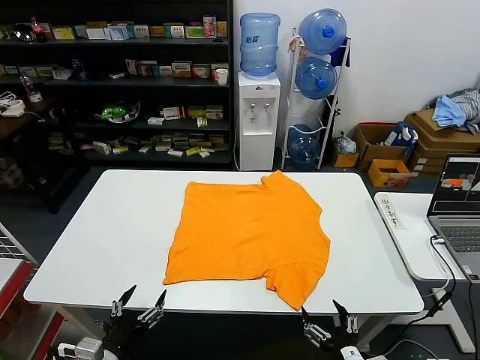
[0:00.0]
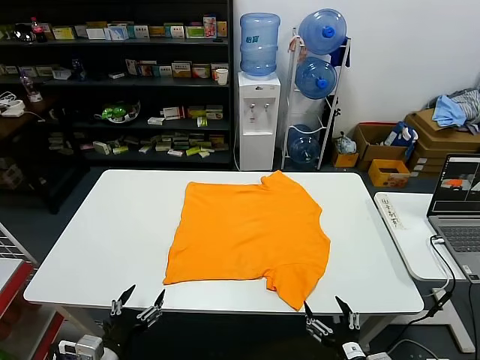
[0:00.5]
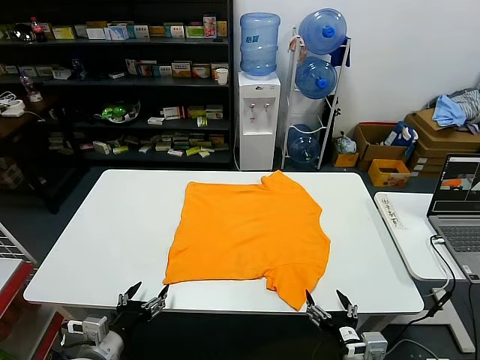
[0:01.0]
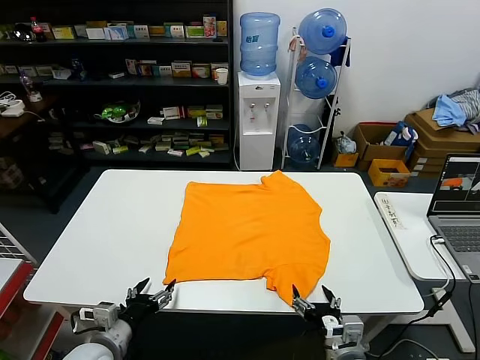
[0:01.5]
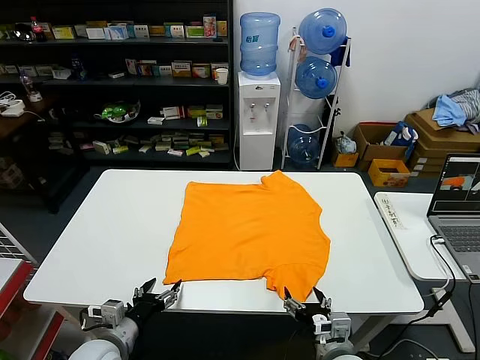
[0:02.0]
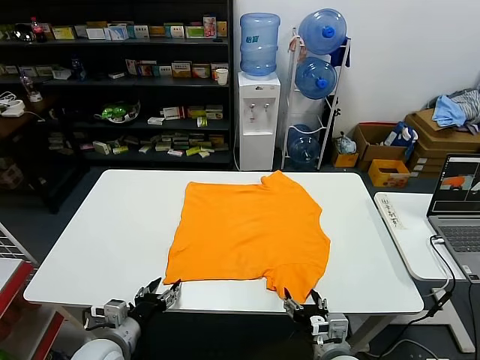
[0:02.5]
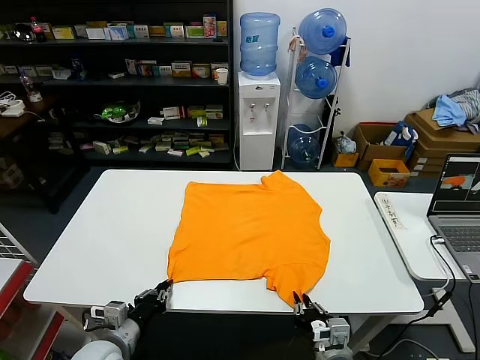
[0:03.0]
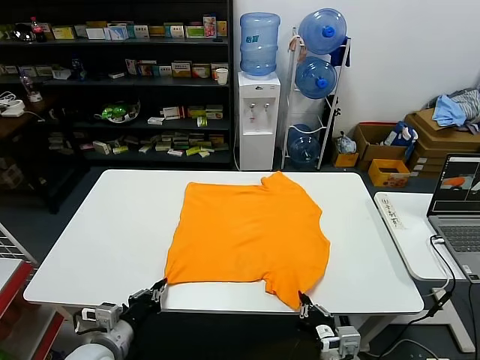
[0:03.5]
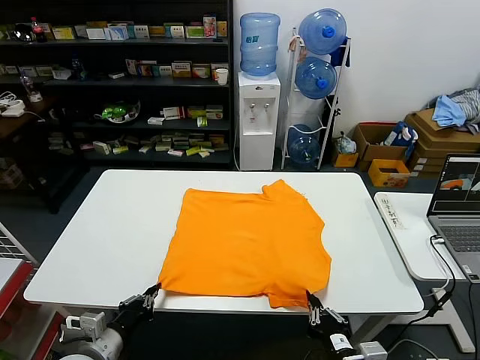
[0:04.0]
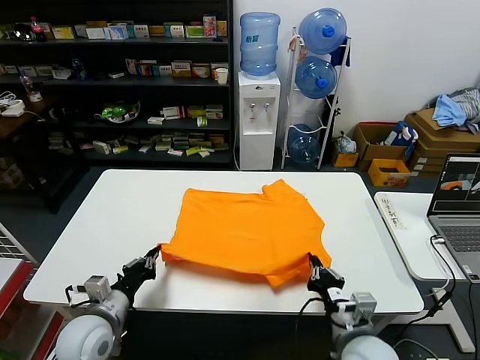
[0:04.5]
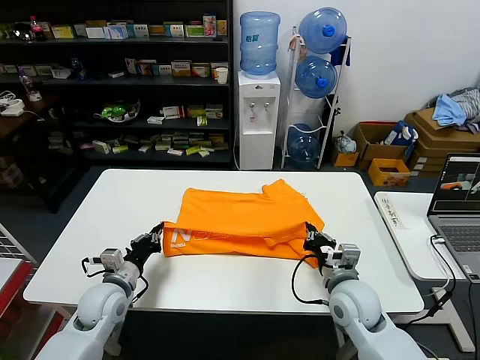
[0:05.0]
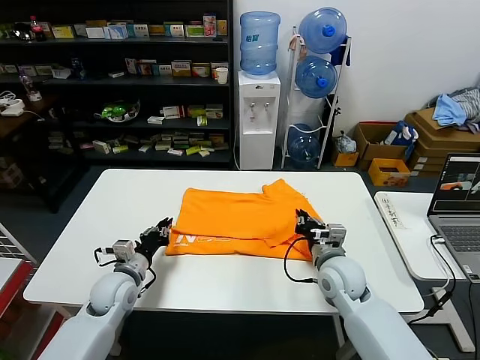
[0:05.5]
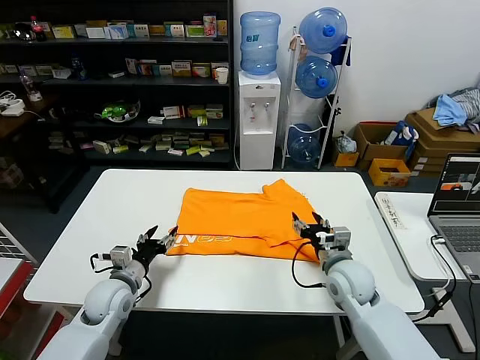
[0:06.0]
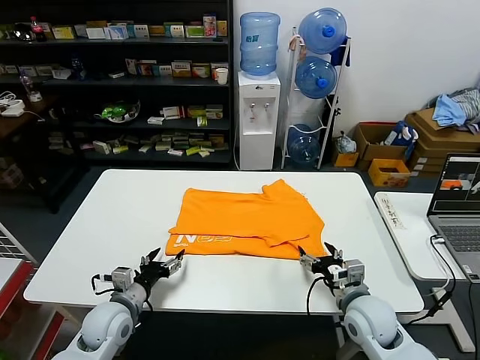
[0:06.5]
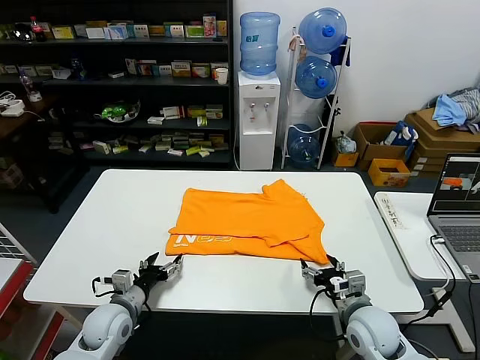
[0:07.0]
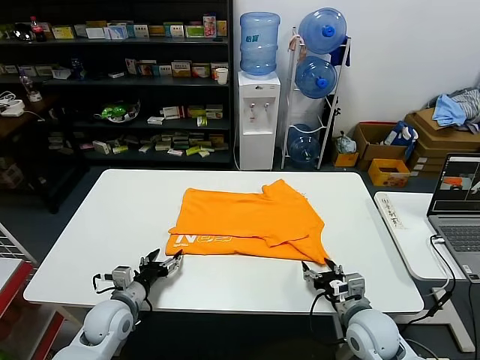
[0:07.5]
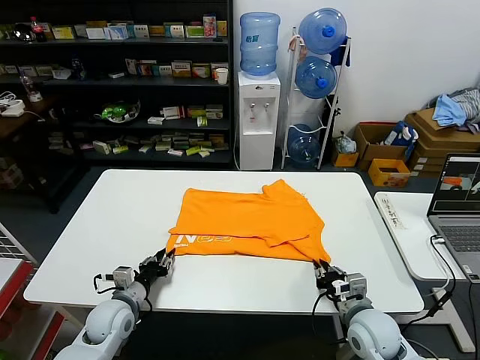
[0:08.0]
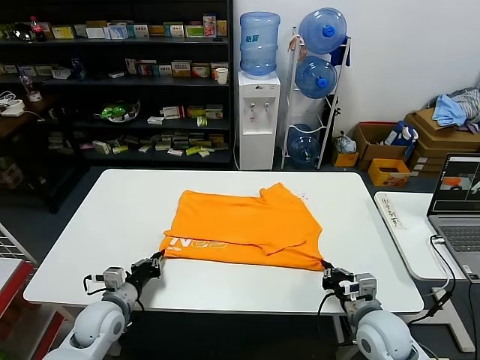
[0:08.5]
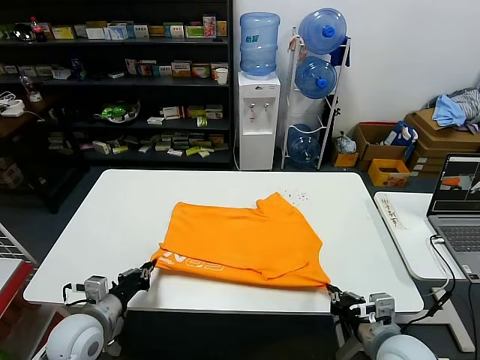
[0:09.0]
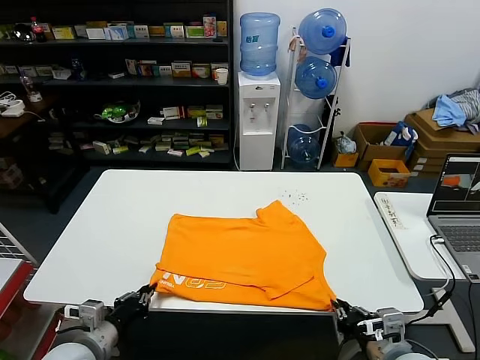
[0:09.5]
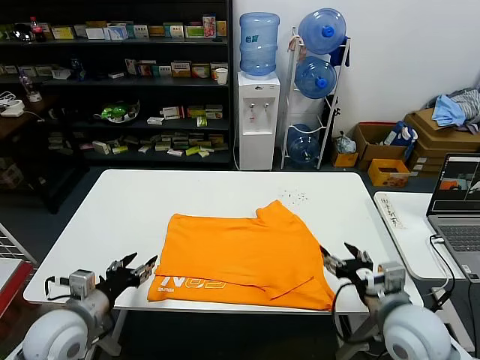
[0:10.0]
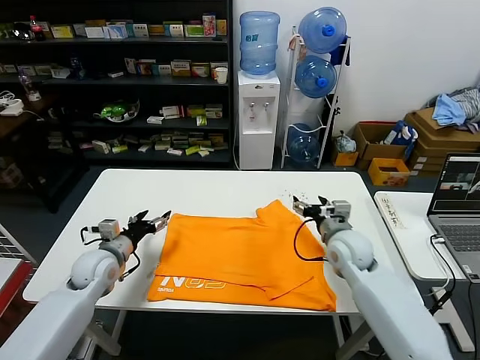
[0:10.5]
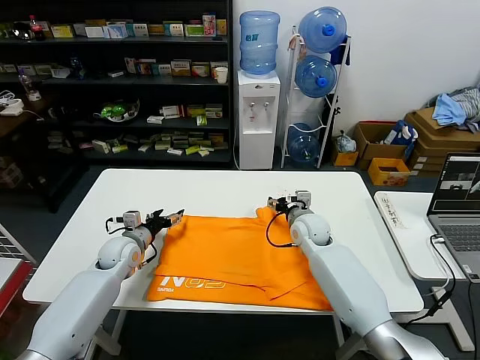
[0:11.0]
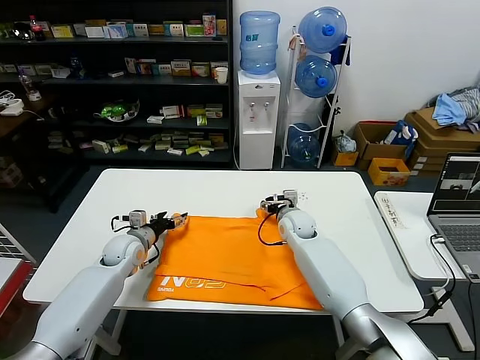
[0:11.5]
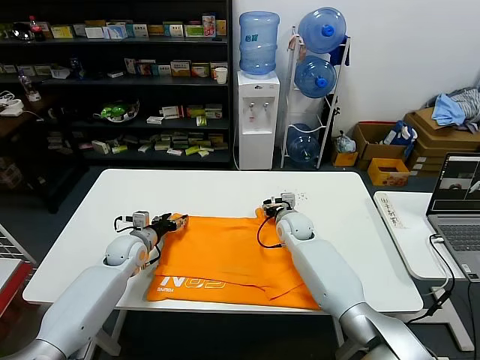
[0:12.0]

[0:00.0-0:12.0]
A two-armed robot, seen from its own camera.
Task of the whole recording: fold and organize the clothes.
Step, 0:00.0 to 0:03.5: use both grippers simultaneously to clamp the lower edge of the clothing fabric.
Step, 0:04.0 to 0:05.5: use both grippers to drag the lower edge of the fabric forward and fold it over the upper edge.
Step, 0:06.0 to 0:09.5: Drag the clothes downward with both gripper.
0:02.0 to 0:04.0: The left gripper ends up about 5 cm from where it was, and closes its fingers. The right gripper moves backward and upward, some 10 cm, and closes.
0:04.0 to 0:06.0: Both grippers move forward, approximately 20 cm. The right gripper opens. The left gripper opens.
0:06.0 to 0:08.0: The right gripper moves backward, approximately 10 cm, and closes. Meanwhile the left gripper shifts by roughly 5 cm, and closes up.
0:08.0 to 0:10.0: The right gripper goes roughly 10 cm upward, and opens; the left gripper heads upward and backward, covering about 15 cm, and closes, then reopens.
0:10.0 to 0:12.0: The left gripper travels forward by roughly 25 cm, while the right gripper moves forward and to the left, about 30 cm.

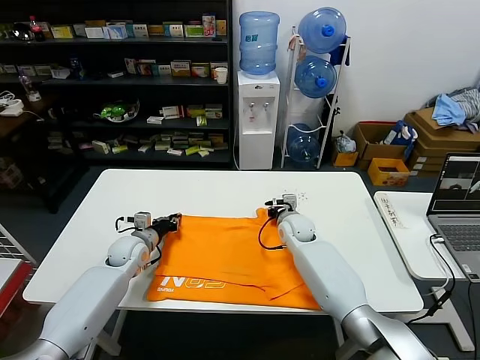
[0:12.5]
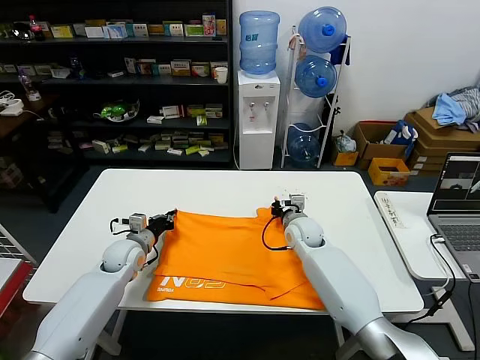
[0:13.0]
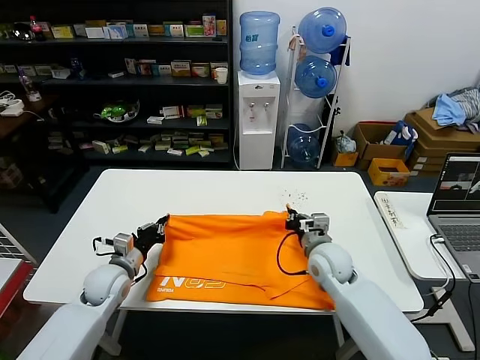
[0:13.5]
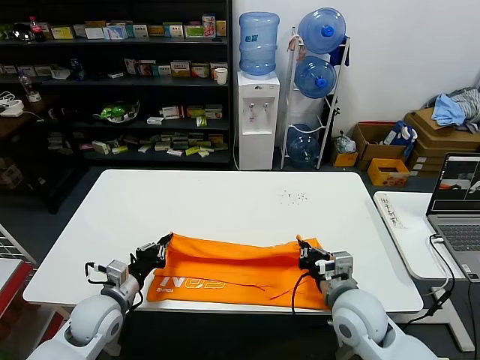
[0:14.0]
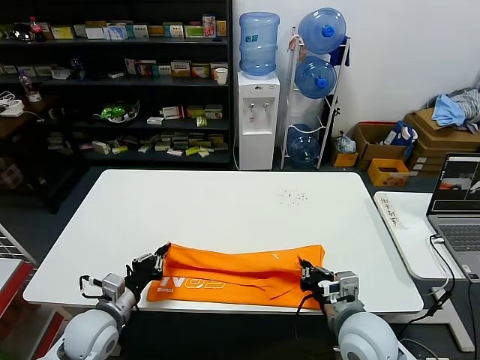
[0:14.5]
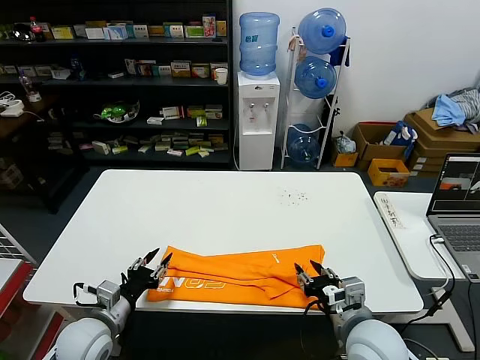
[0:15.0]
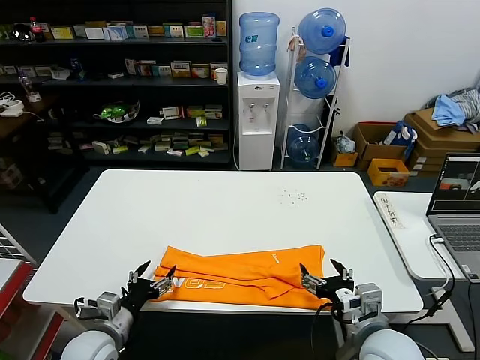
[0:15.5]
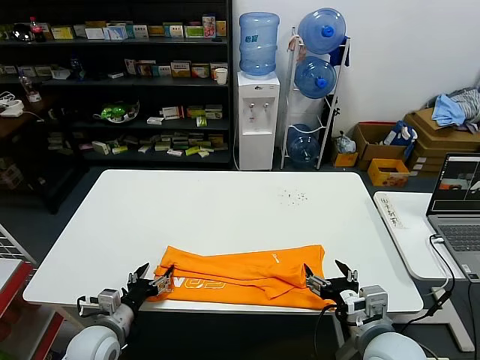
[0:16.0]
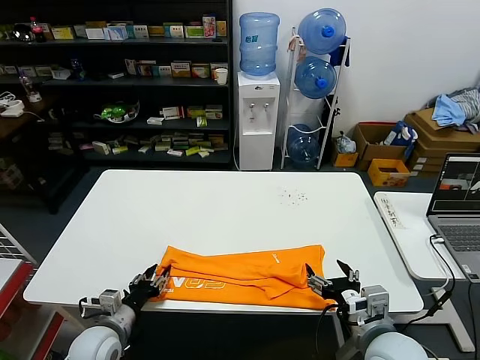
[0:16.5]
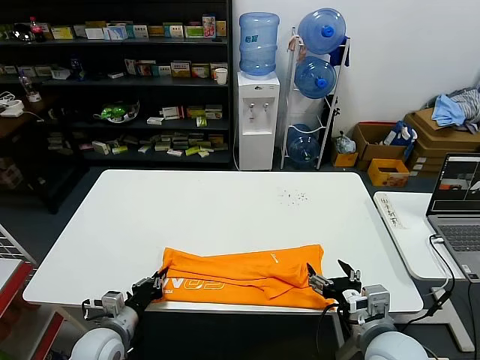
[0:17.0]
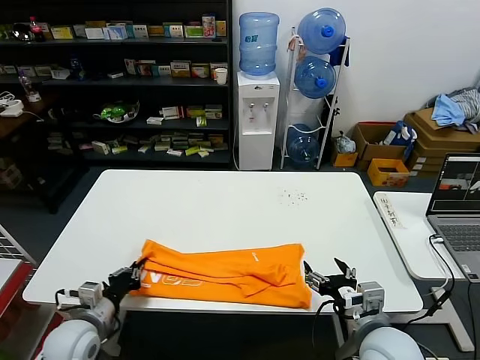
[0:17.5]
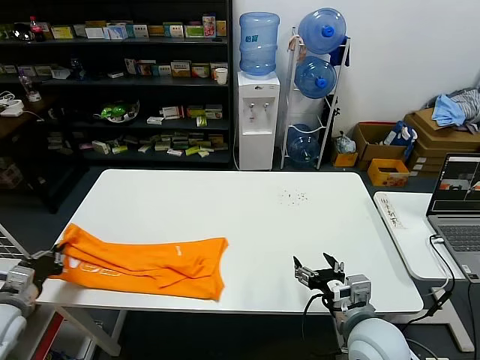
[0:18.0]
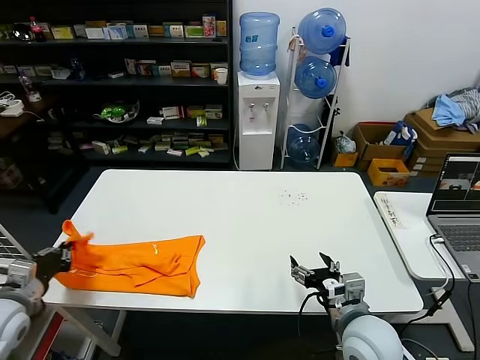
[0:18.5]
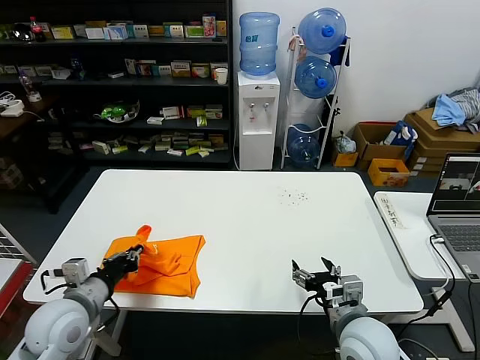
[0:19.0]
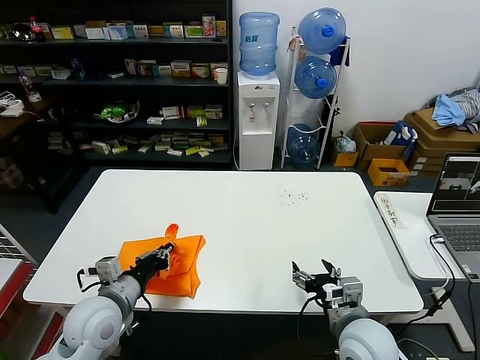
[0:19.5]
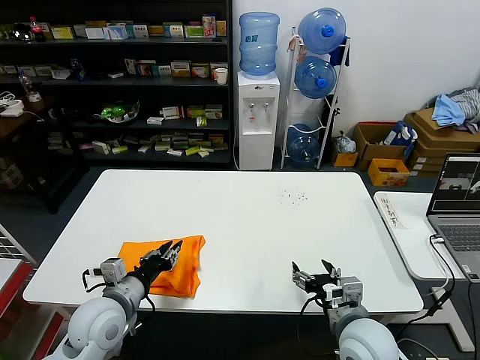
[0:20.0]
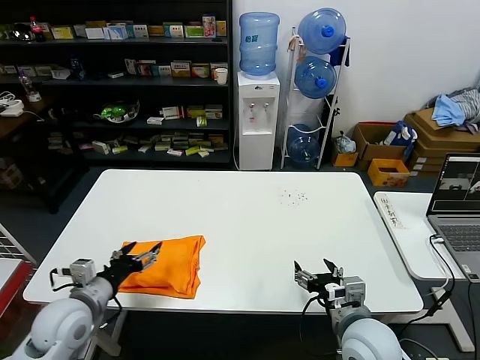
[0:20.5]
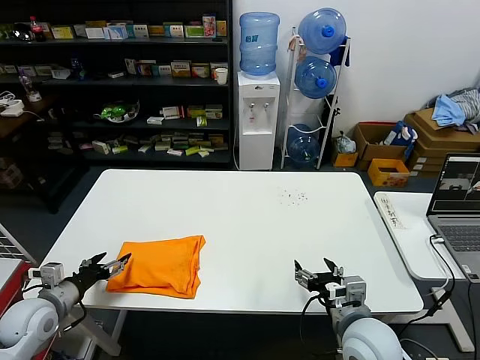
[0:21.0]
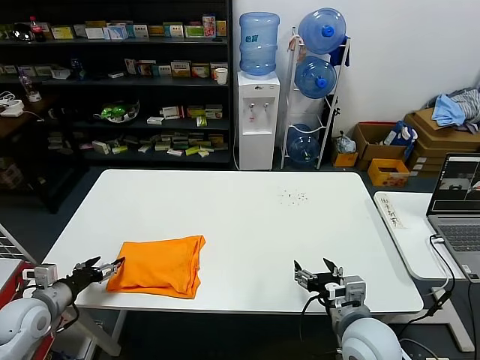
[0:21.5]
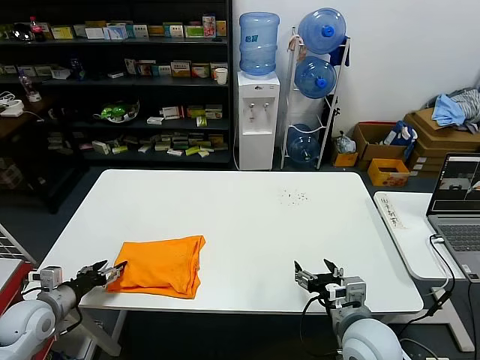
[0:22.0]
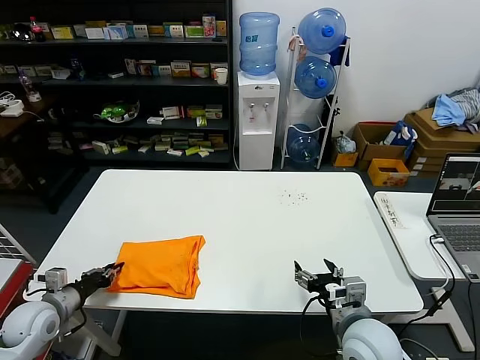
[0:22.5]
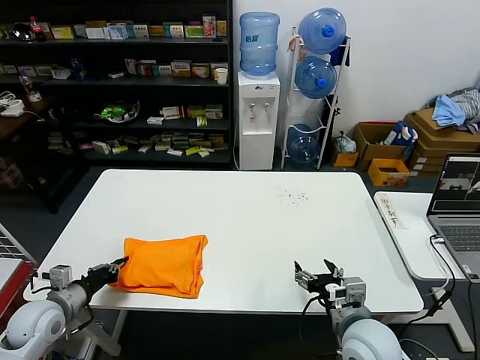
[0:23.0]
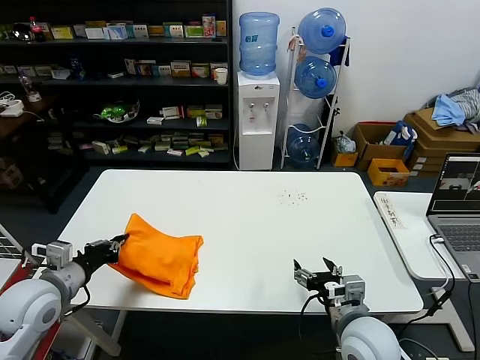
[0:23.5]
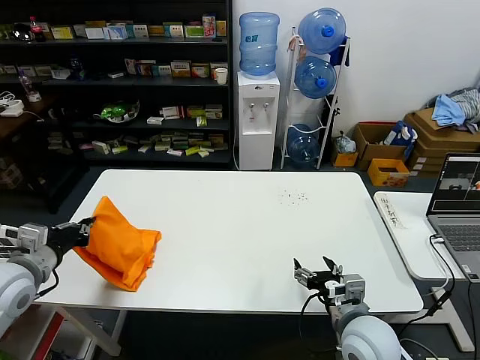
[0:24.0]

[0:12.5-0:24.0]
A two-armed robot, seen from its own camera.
Task of the whole recording: fold and organize the clothes.
Step, 0:13.0 to 0:15.0: use both grippers to drag the upper edge of the fabric backward and fold it over the lower edge.
Step, 0:15.5 to 0:17.0: use the left gripper to clamp the left edge of the fabric.
Step, 0:17.5 to 0:20.0: use the left gripper to drag the left edge of the fabric to the left and folds it over the right edge.
0:12.5 to 0:14.5: The grippers both shift backward by approximately 25 cm.
0:14.5 to 0:16.5: The left gripper is displaced downward by some 5 cm, and opens. Meanwhile the right gripper changes place by some 5 cm, and opens up.
0:16.5 to 0:18.5: The left gripper travels to the left and upward by roughly 20 cm, and closes up.
0:18.5 to 0:20.0: The left gripper moves to the right, about 20 cm.
0:20.0 to 0:22.0: The left gripper goes roughly 20 cm to the left, and opens its fingers.
0:22.0 to 0:24.0: The left gripper travels upward by about 15 cm, and closes its fingers.

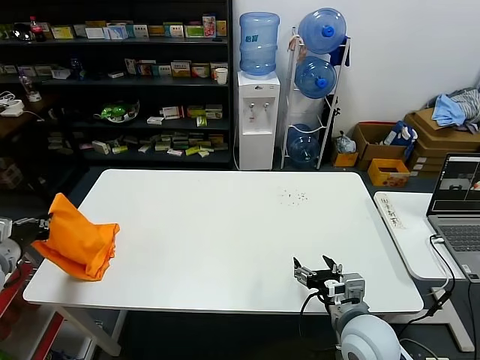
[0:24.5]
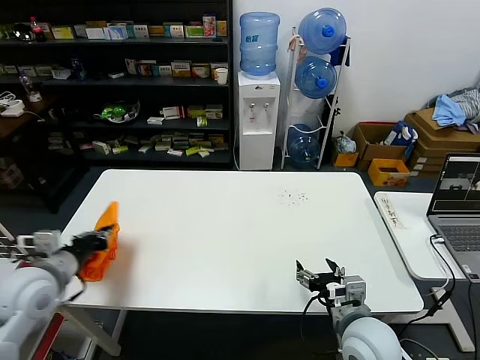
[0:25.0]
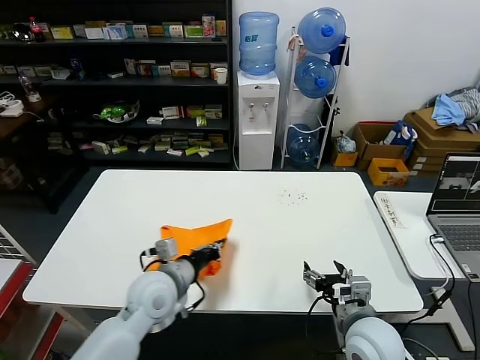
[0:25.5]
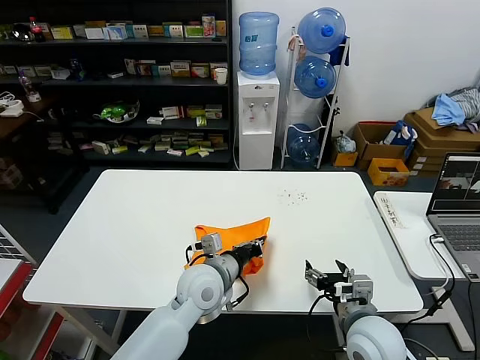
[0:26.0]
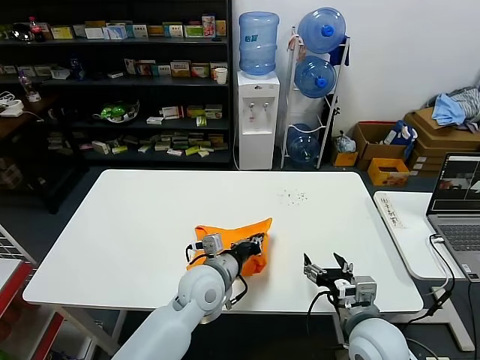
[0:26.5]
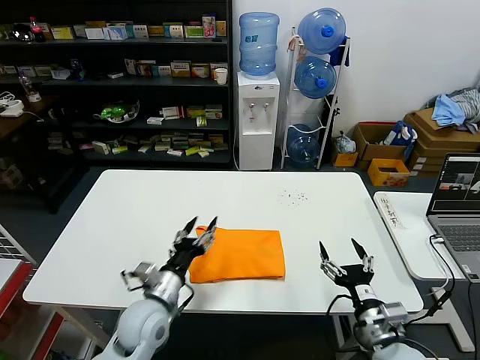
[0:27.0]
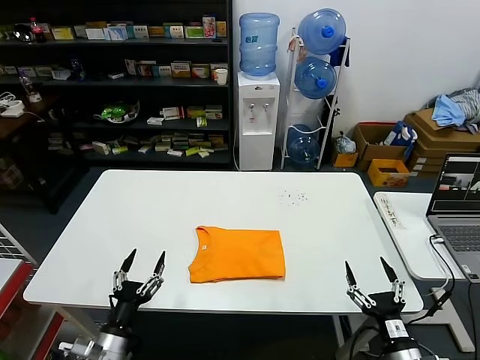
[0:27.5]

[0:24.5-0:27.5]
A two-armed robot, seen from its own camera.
Task of the whole recording: fold and organize the clothes.
Step, 0:24.5 to 0:26.5: Flip the folded clothes over with left gripper.
0:24.5 to 0:26.0: The left gripper moves to the right, some 40 cm.
0:26.0 to 0:27.5: The left gripper shifts approximately 25 cm to the left, backward and downward, and opens; the right gripper is displaced backward, to the right and downward by approximately 15 cm.
